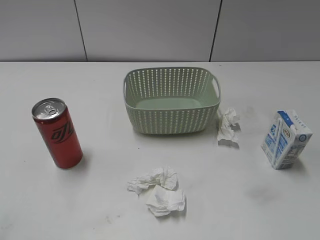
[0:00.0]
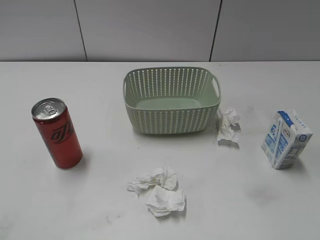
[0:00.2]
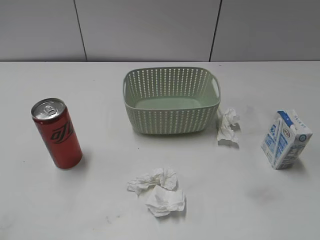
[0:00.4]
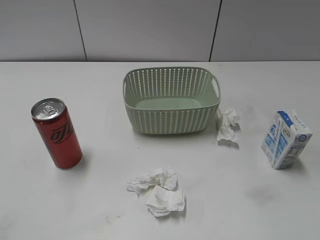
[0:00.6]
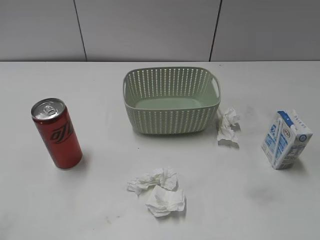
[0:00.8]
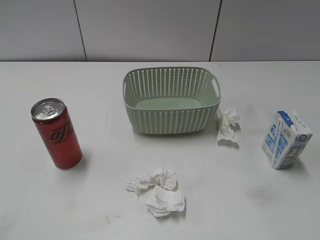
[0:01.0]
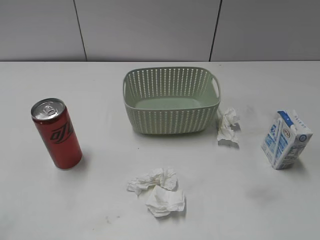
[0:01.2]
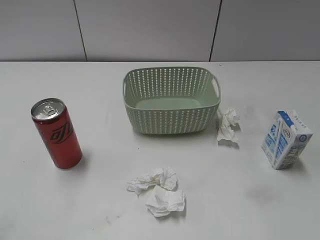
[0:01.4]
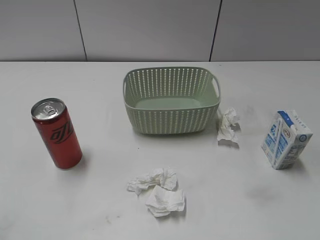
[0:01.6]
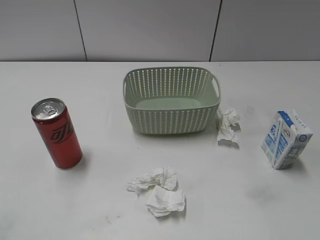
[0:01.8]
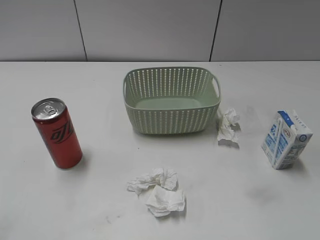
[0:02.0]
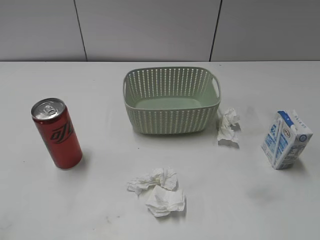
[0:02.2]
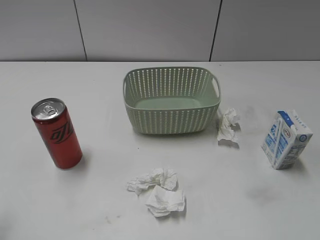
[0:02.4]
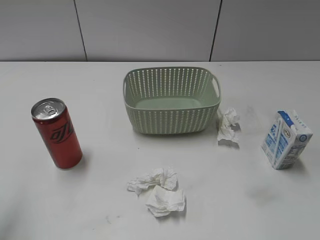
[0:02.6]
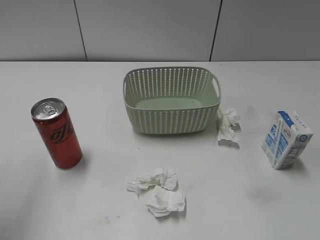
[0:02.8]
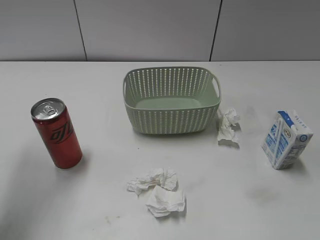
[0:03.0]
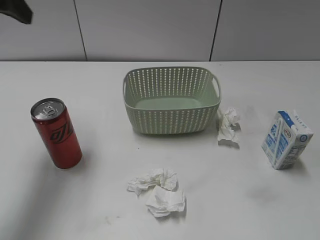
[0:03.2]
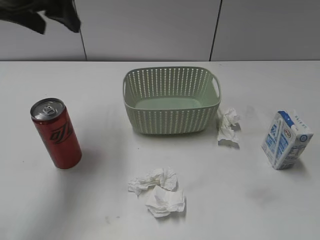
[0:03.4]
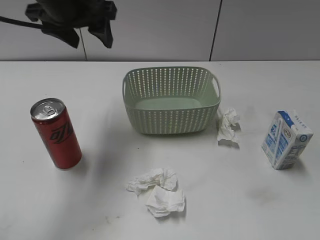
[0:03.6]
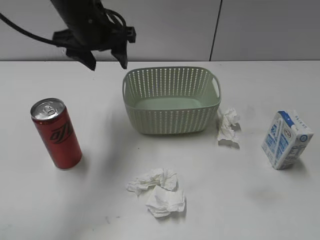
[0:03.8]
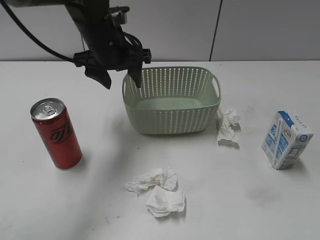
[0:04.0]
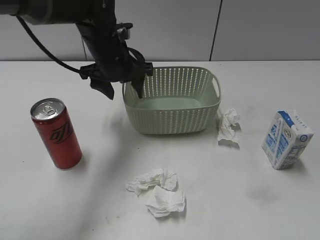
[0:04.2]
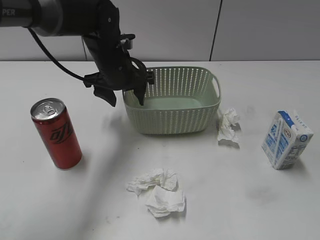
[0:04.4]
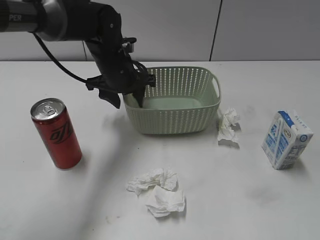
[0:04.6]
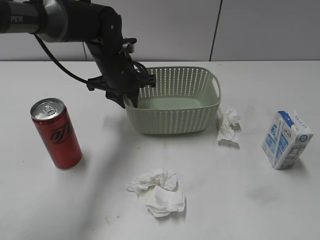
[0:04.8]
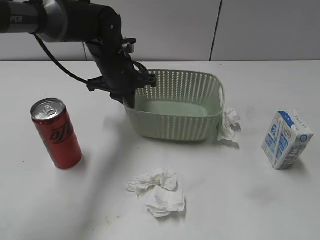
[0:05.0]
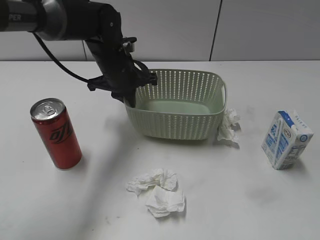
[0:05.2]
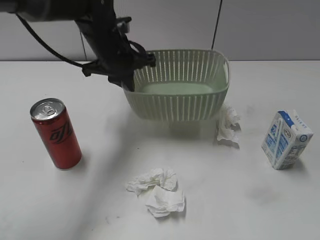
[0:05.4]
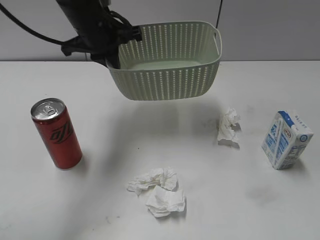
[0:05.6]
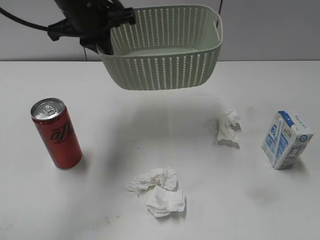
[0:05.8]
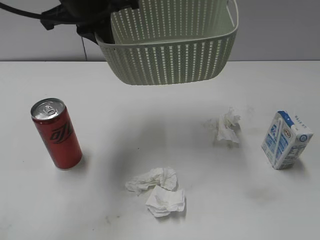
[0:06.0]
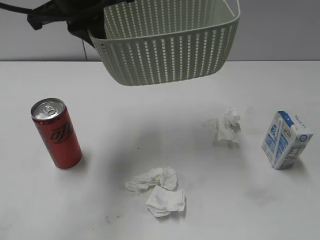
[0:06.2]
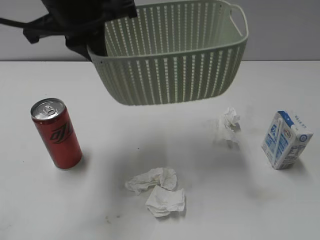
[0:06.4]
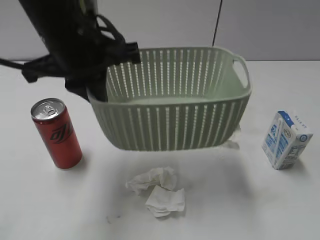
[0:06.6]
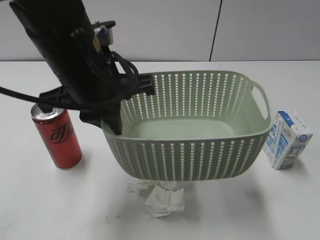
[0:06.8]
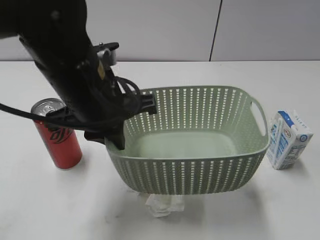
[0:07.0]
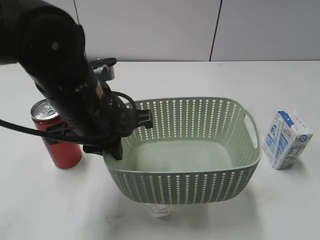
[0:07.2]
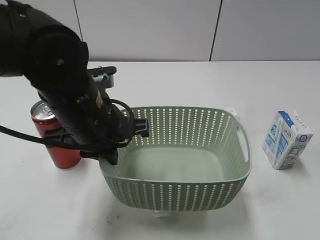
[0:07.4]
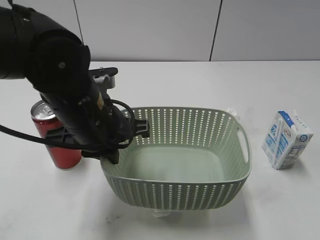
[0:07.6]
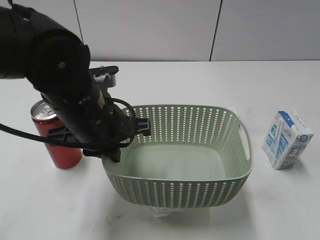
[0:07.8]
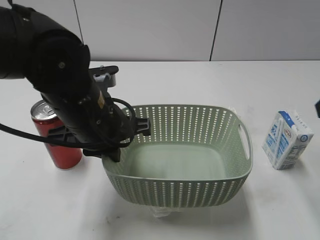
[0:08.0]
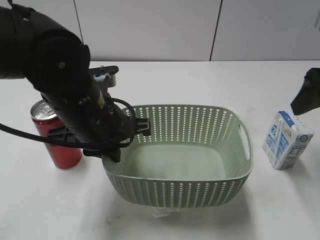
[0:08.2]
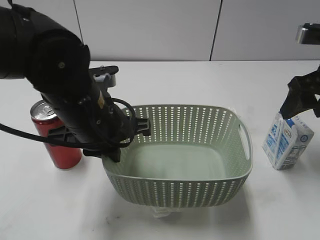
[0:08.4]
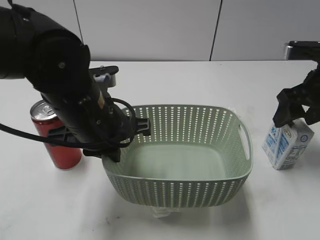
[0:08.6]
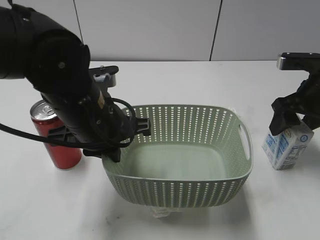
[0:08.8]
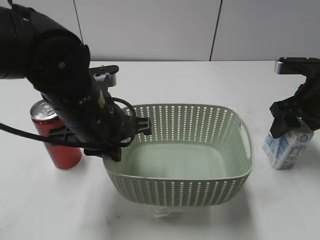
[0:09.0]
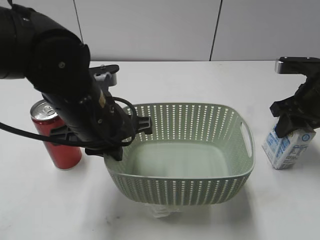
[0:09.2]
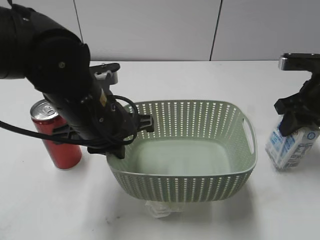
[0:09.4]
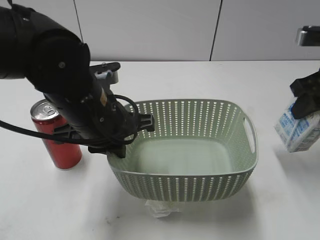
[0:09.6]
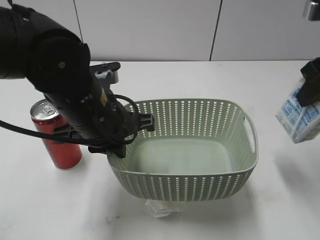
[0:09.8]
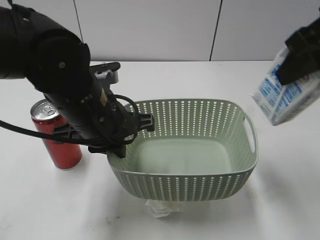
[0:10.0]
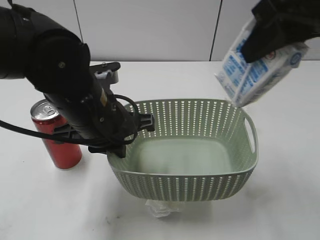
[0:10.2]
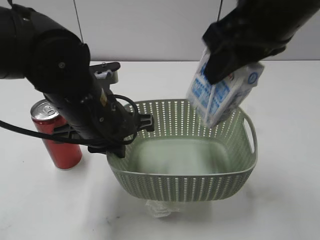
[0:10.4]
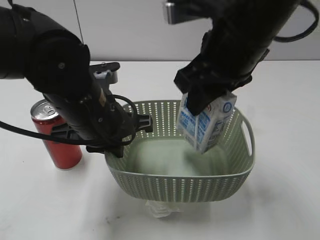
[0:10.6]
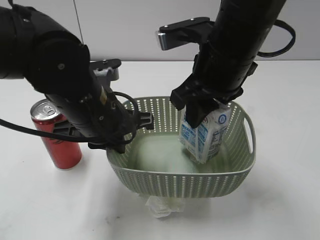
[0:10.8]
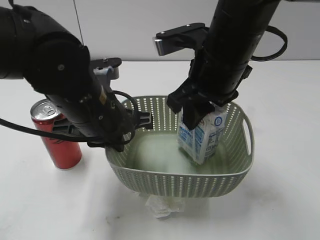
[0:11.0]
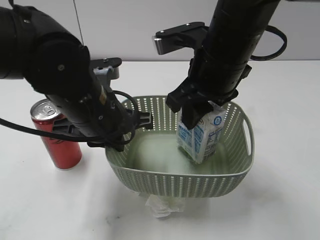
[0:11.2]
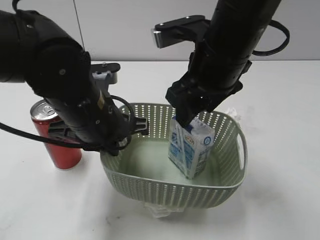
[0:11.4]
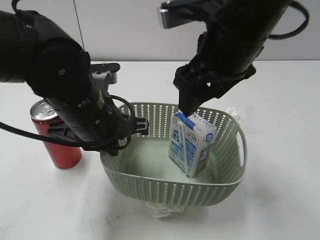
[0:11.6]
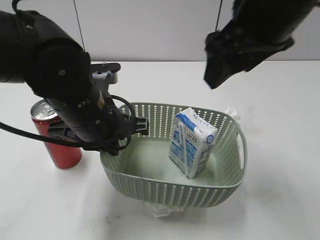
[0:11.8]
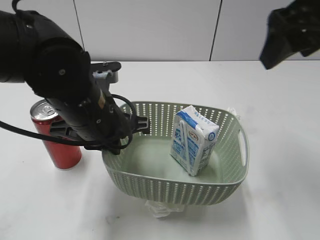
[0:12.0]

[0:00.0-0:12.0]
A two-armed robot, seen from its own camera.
Step, 3.2 to 5.0 s: Grasp the basket with left gripper.
Step, 5.2 to 7.8 s: Lift the basket with left gripper.
Step, 8.0 to 9.2 s: Grasp the milk with right gripper.
Step, 9.4 to 11.6 s: Place the milk in the basket with right gripper.
1.6 to 3.0 s: The left gripper goes about 25 cm forward.
3.0 to 4.4 s: The left gripper travels downward, to the right and forward by some 30 cm.
4.4 to 6.0 s: The left gripper shifts about 15 cm upward, and closes its fingers.
6.0 to 7.6 s: The left gripper goes about 15 cm downward and backward. The right gripper travels forward by about 10 cm.
7.6 to 9.0 s: The right gripper goes about 30 cm forward and downward.
9.0 to 10.4 s: The right gripper goes about 25 cm upward, to the left and backward, and closes up.
10.4 to 12.0 s: The right gripper shifts roughly 10 cm to the right, and opens up.

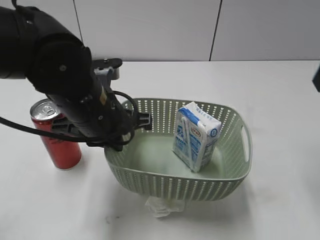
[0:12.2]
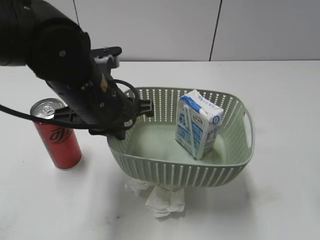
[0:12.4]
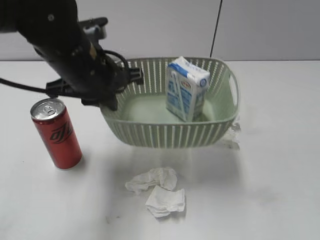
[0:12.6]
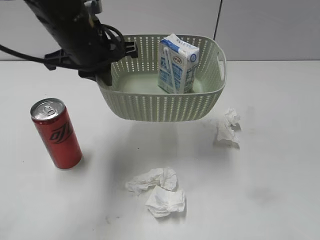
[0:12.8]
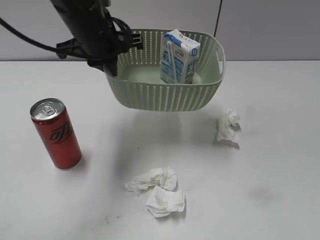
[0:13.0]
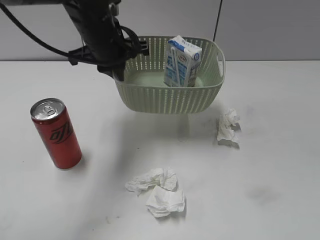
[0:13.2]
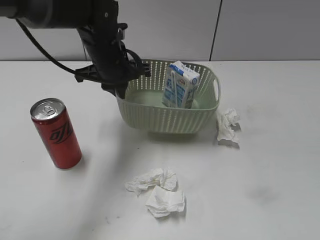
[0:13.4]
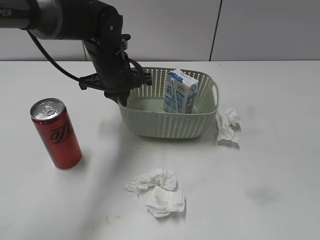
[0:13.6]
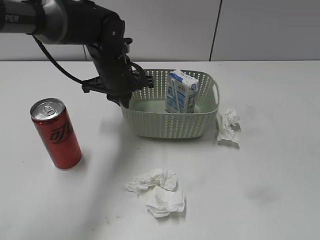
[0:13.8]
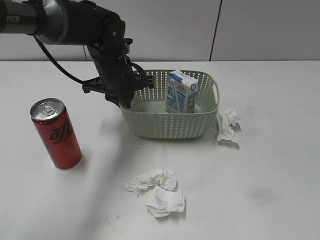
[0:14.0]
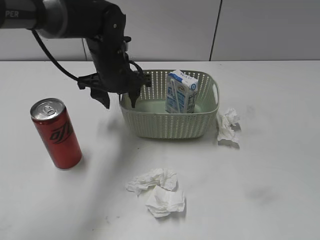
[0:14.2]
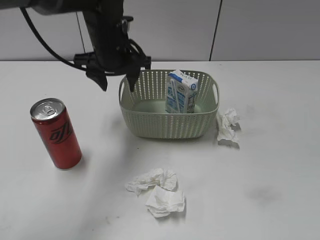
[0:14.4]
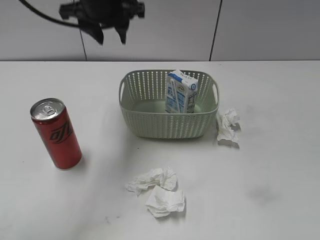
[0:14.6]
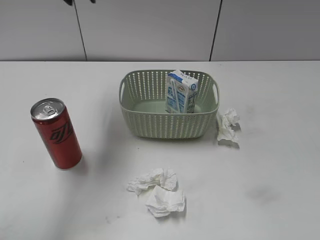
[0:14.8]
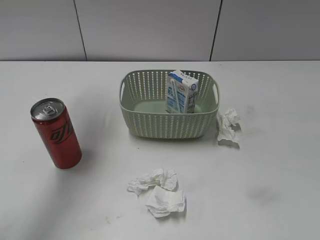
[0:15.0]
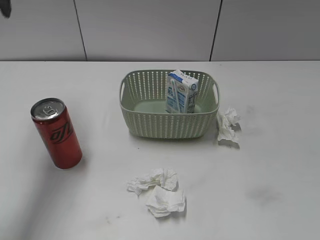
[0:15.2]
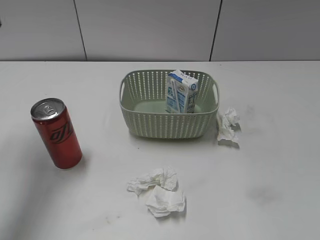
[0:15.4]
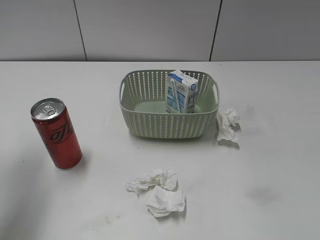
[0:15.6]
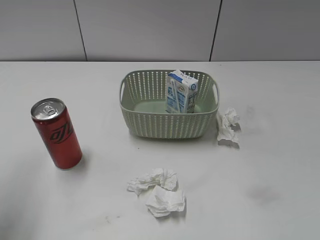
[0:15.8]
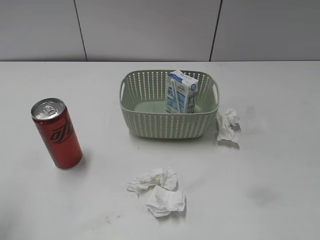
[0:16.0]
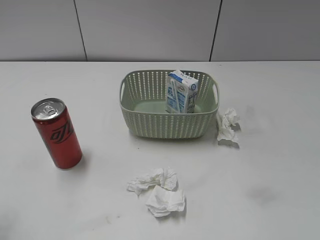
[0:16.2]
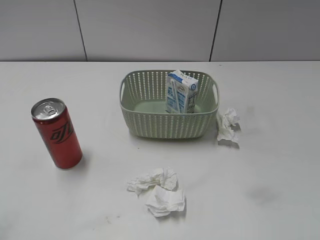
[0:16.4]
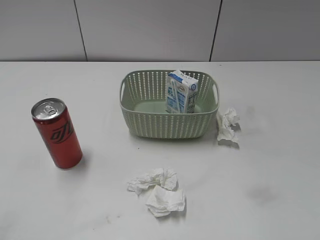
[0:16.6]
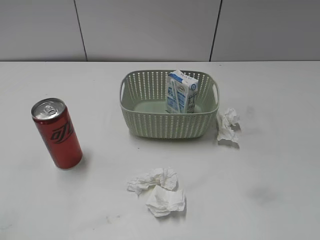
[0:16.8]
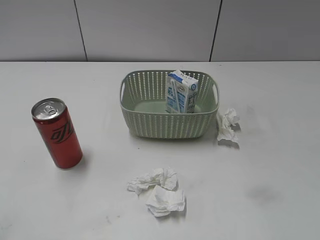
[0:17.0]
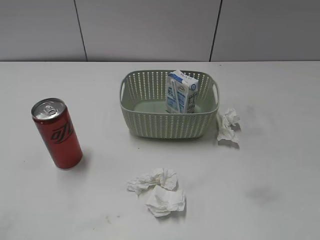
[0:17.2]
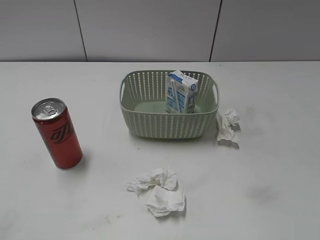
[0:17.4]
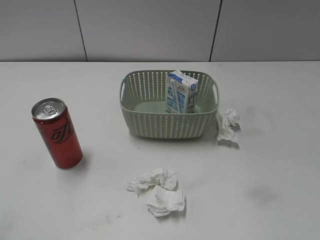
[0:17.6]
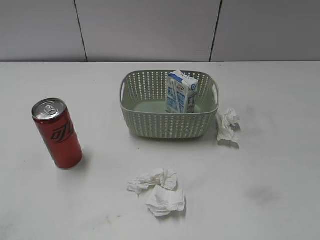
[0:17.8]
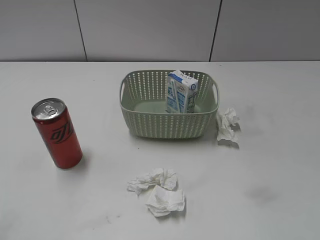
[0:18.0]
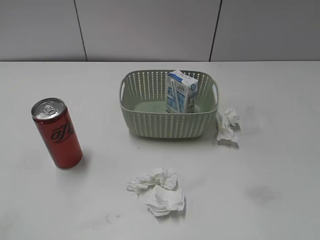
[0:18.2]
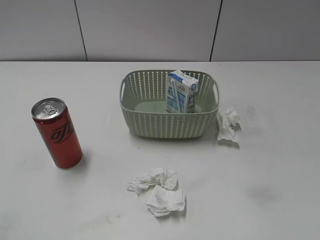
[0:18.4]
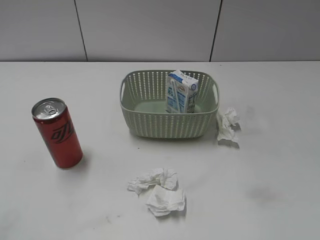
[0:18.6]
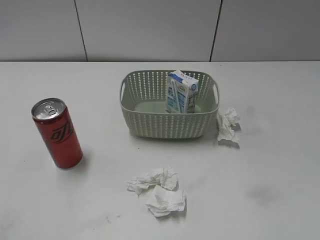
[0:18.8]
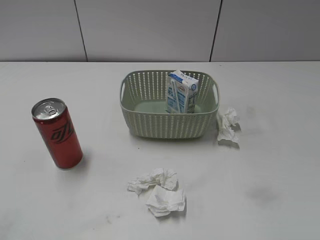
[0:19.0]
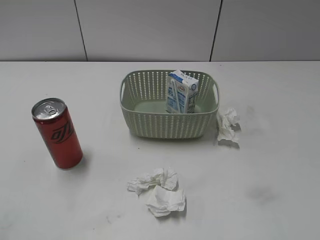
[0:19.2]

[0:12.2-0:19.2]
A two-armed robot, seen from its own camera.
Step, 12.2 to 14.2 s: Place the basket on the table with left gripper.
12.2 to 13.6 s: The left gripper heads forward, covering approximately 15 cm; the right gripper travels backward by some 25 cm.
13.6 to 15.0 s: The left gripper shifts approximately 25 cm upward and to the left, and opens up.
15.0 to 16.4 s: The left gripper shifts roughly 35 cm backward, and opens its fingers.

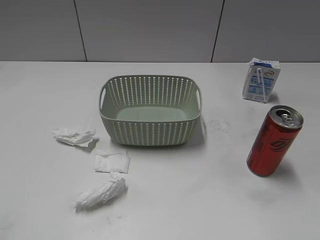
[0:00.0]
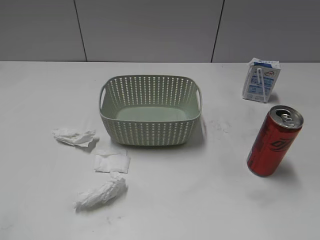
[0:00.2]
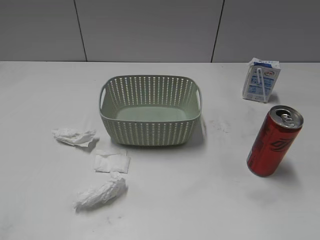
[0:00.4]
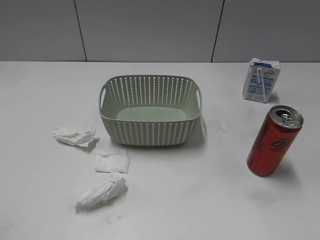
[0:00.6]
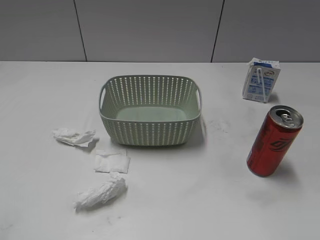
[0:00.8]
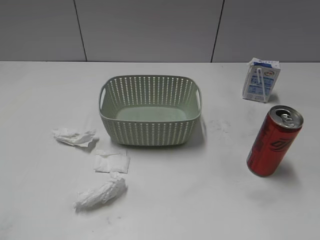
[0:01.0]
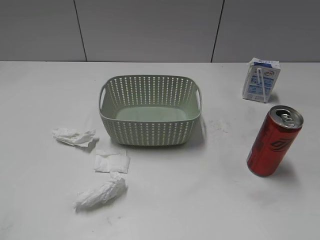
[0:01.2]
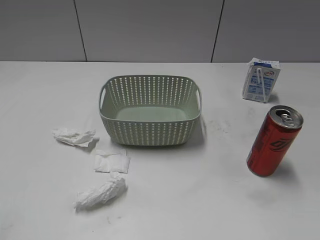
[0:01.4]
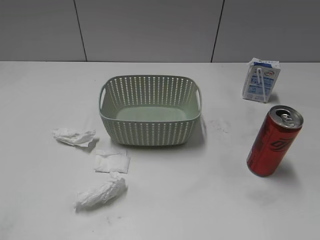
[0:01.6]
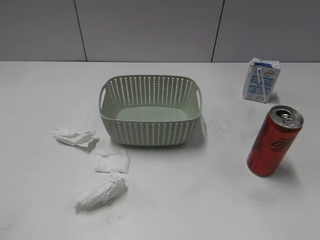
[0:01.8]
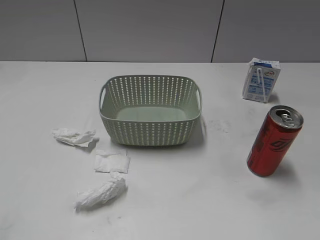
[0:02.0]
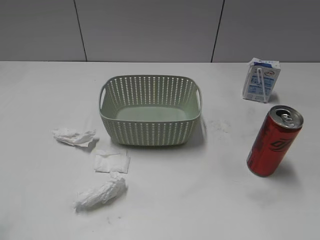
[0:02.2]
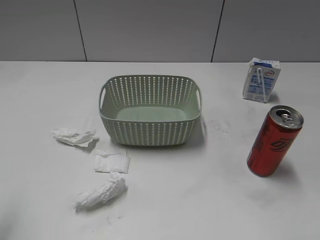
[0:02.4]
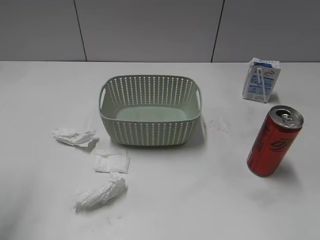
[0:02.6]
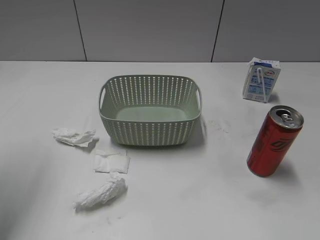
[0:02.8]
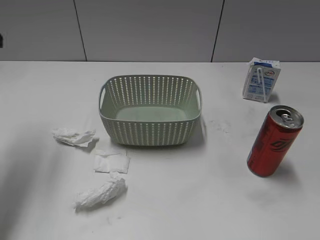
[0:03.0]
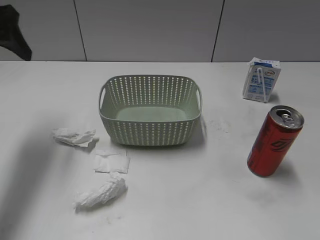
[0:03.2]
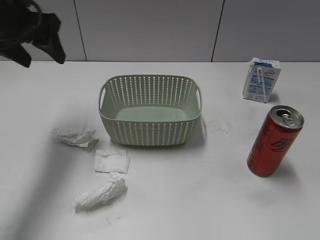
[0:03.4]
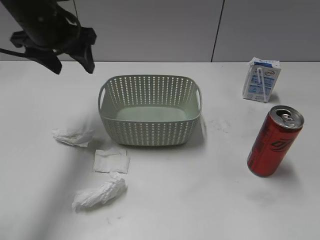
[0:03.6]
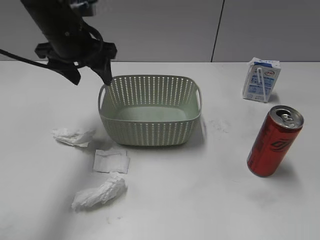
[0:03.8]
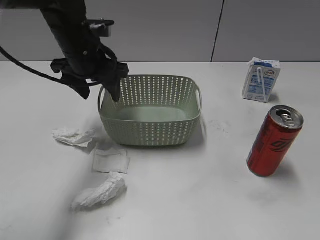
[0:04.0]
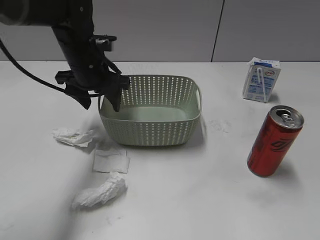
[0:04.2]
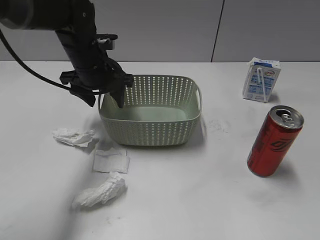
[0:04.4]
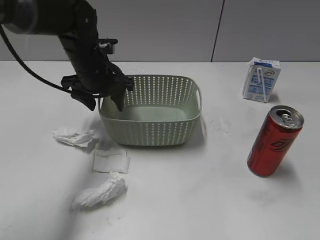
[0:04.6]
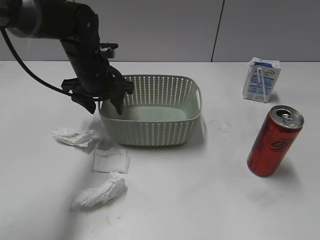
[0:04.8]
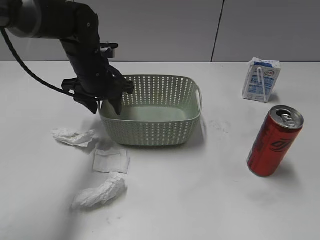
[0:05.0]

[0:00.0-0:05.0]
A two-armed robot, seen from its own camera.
1.6 to 3.4 s: The left gripper heads forward, covering about 35 cm.
3.4 to 5.0 s: The left gripper moves downward and to the right, some 15 cm.
